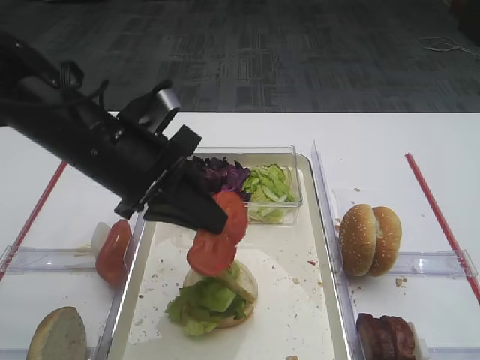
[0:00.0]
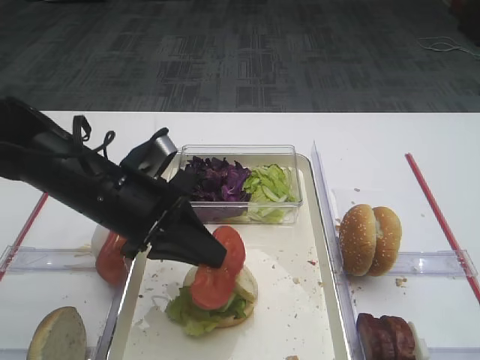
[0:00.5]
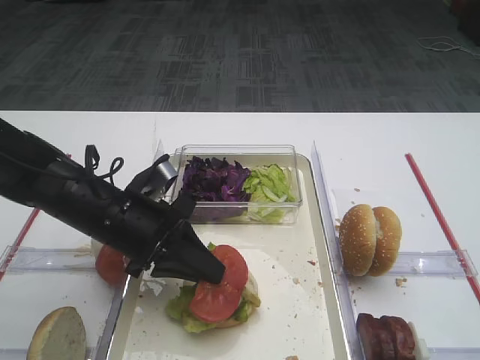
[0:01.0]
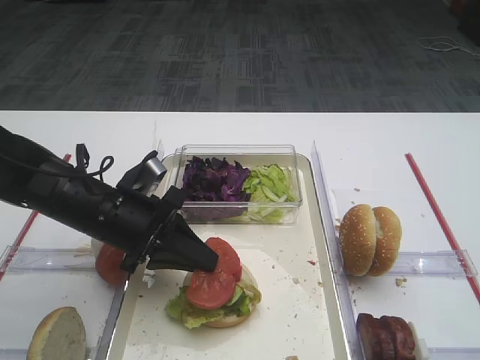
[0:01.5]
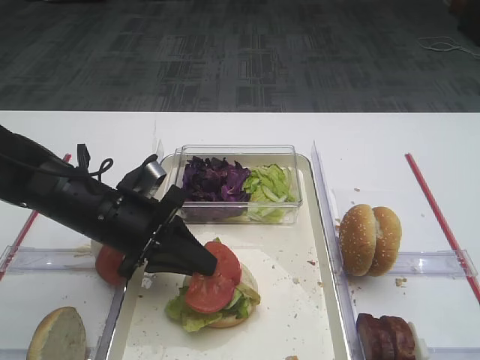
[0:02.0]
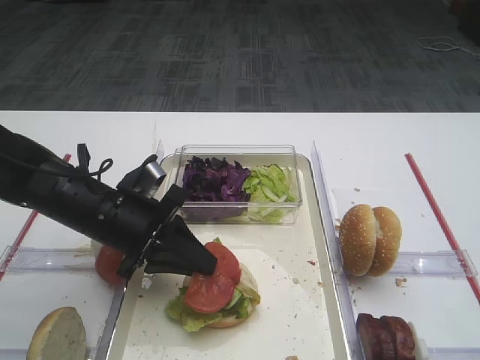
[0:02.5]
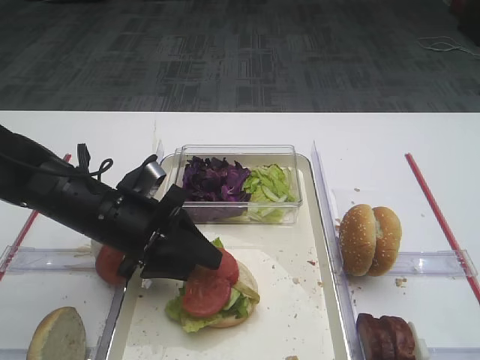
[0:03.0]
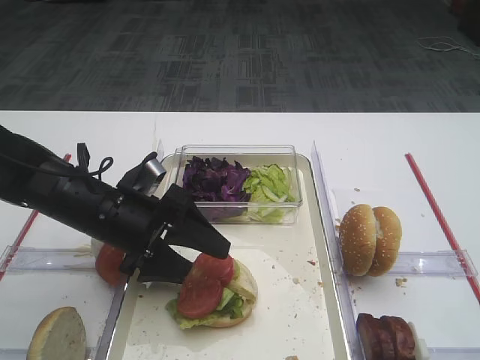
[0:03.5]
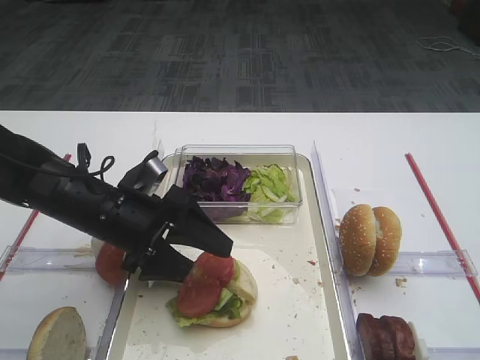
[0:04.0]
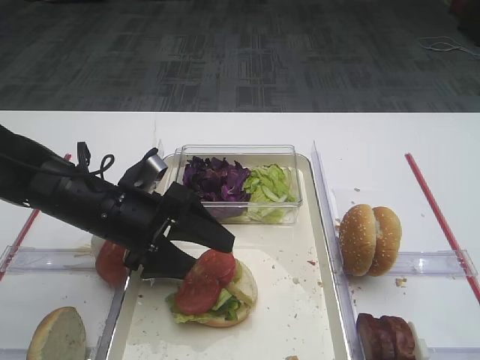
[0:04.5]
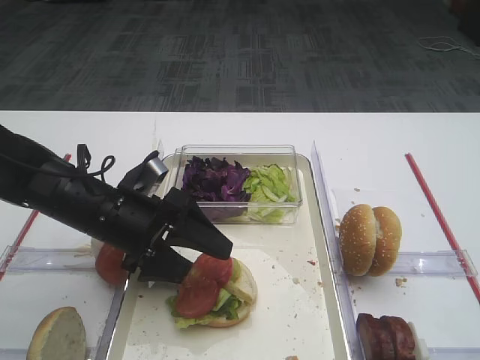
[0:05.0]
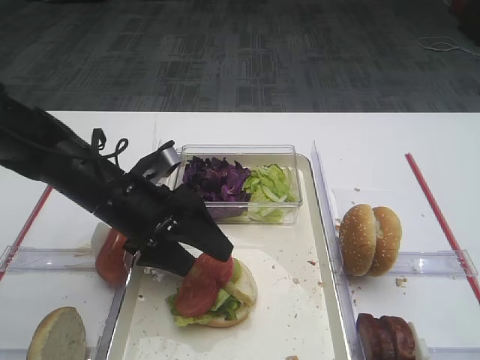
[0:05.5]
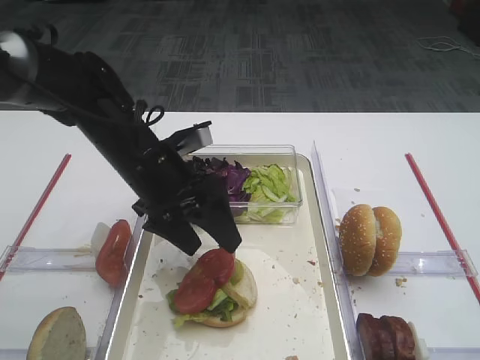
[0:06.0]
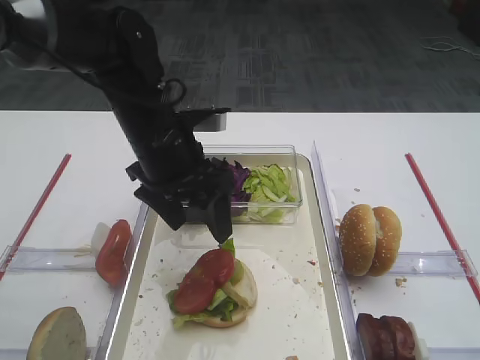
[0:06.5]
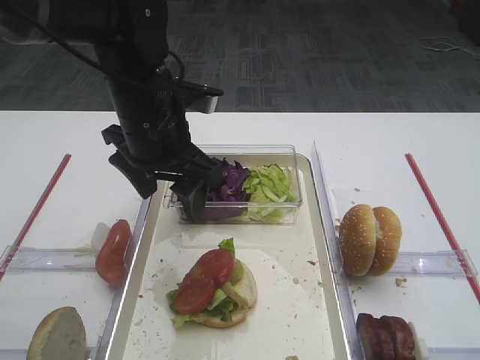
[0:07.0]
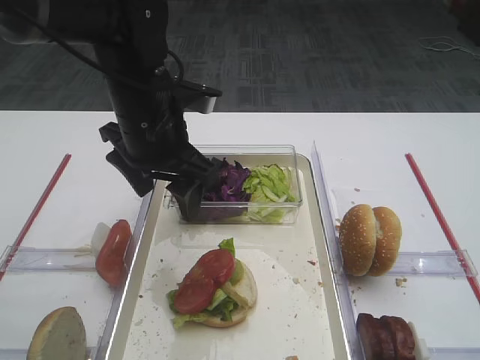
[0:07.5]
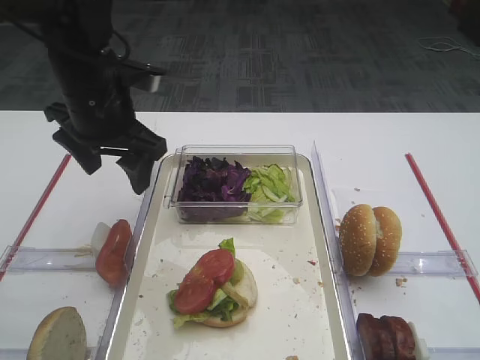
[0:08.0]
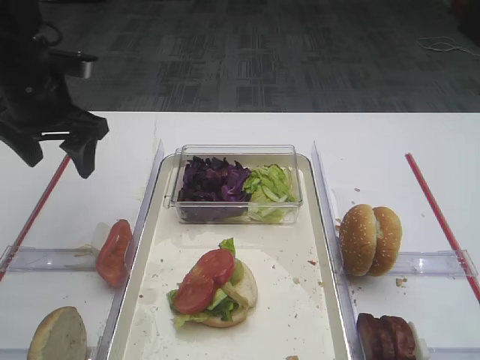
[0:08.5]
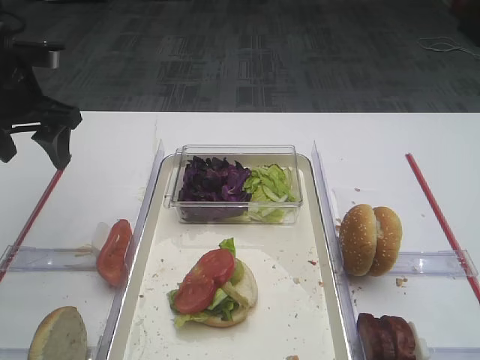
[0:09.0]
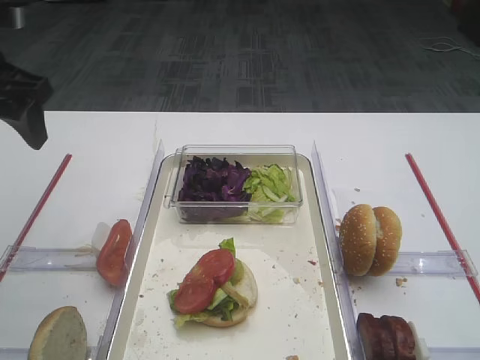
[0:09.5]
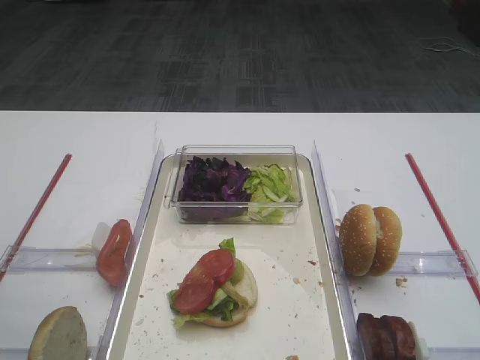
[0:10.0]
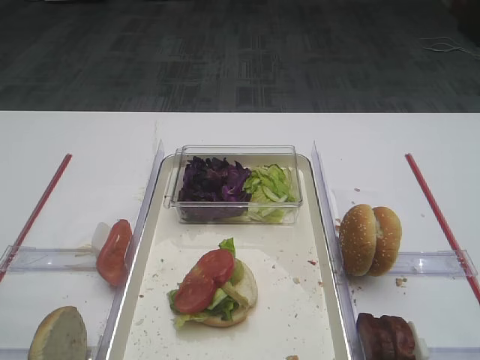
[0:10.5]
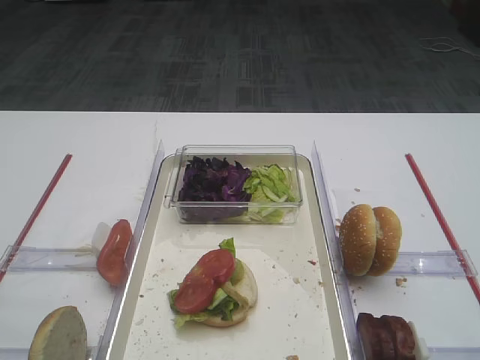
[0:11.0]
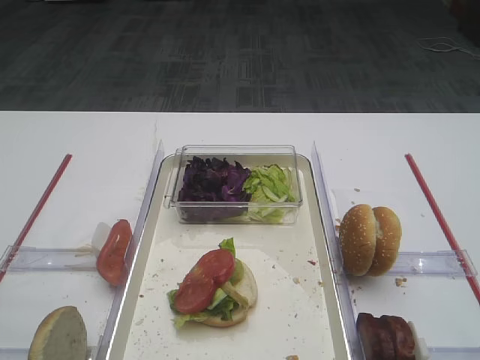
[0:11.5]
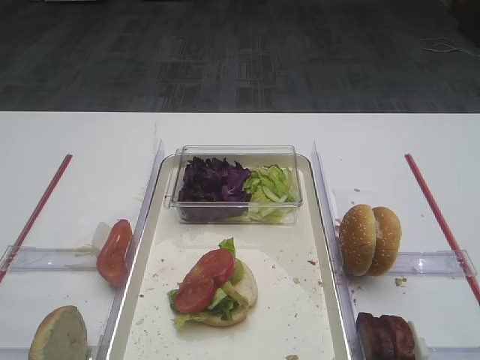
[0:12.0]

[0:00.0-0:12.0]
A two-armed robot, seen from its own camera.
Step, 0:00.0 to 0:06.0: Place the tomato slice on the lettuce leaf with the left gripper.
0:00.0 to 0:02.0: The left gripper heads downward, covering roughly 10 cm.
0:02.0 to 0:04.0: The left gripper opens.
0:04.0 to 0:06.0: The left gripper moves some 5 cm.
0:06.0 to 0:08.0: The left gripper travels upward by some 5 cm.
0:08.0 to 0:10.0: The left gripper is displaced backward, to the left and upward by roughly 20 cm.

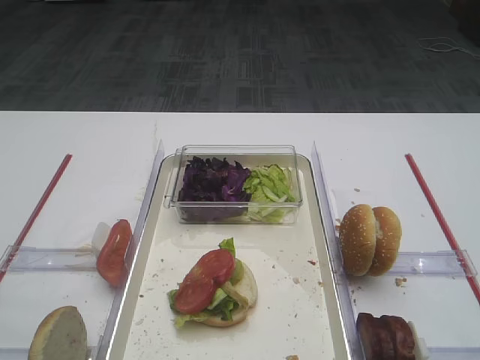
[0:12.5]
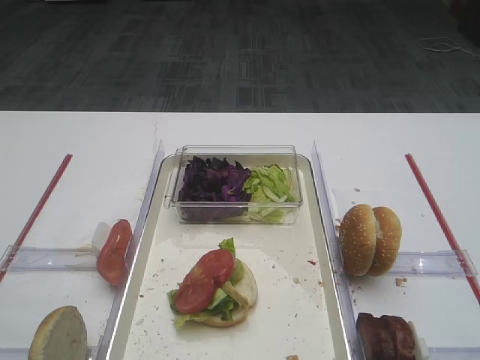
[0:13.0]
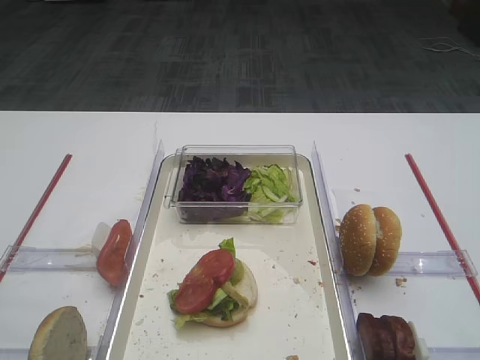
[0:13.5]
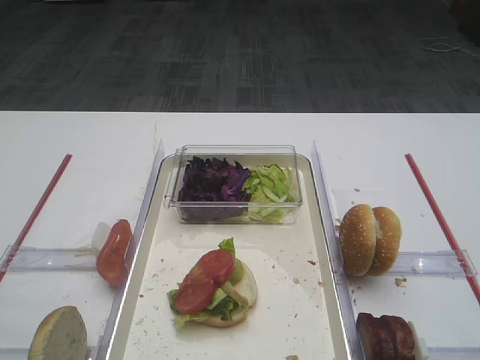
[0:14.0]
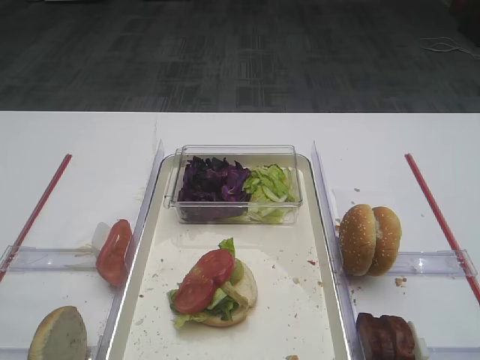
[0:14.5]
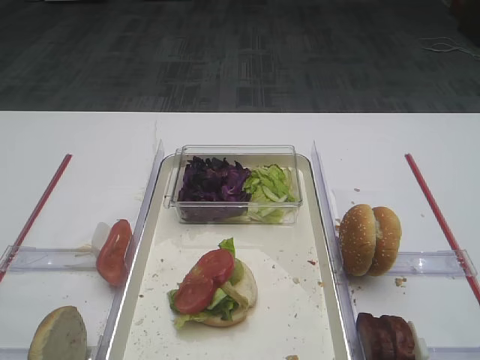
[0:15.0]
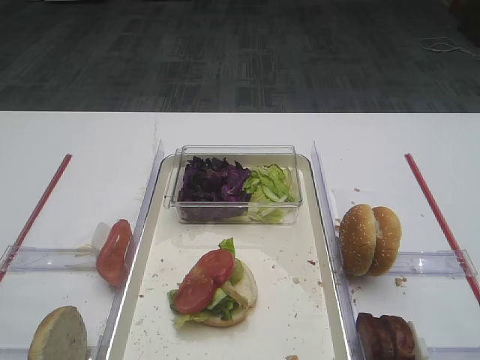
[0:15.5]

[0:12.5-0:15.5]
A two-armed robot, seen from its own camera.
0:12.5 to 0:15.5: Neither gripper changes place.

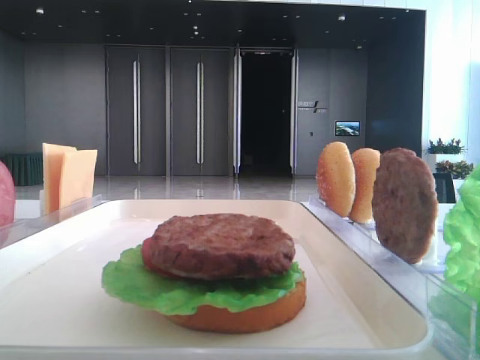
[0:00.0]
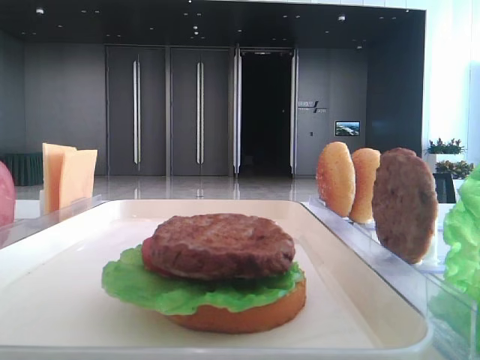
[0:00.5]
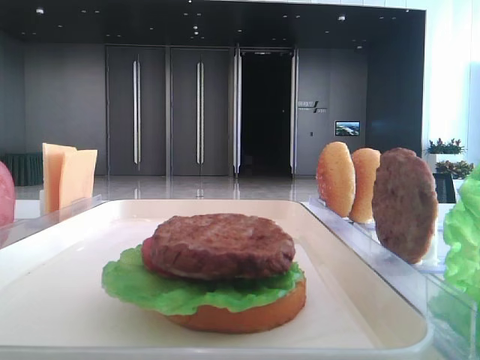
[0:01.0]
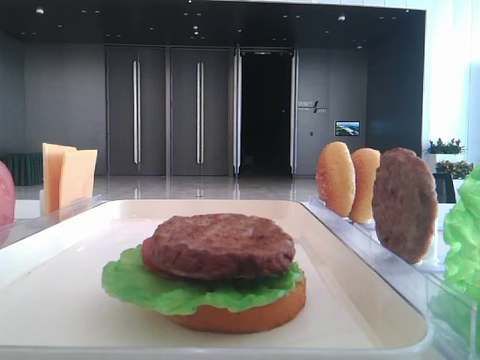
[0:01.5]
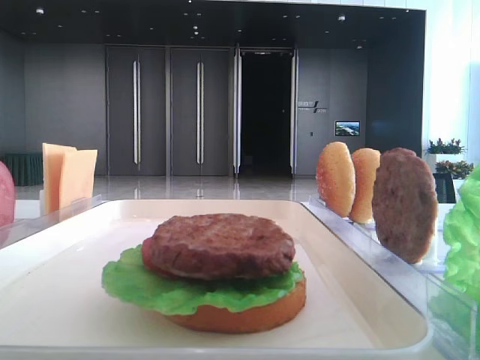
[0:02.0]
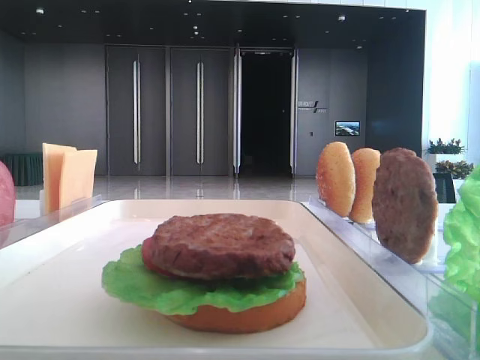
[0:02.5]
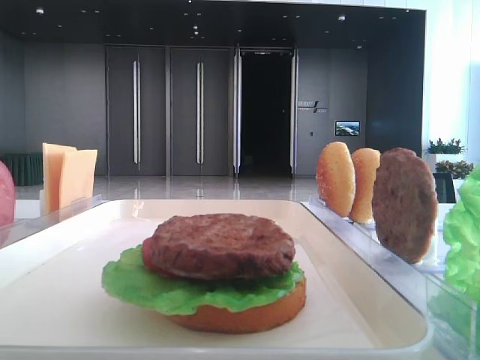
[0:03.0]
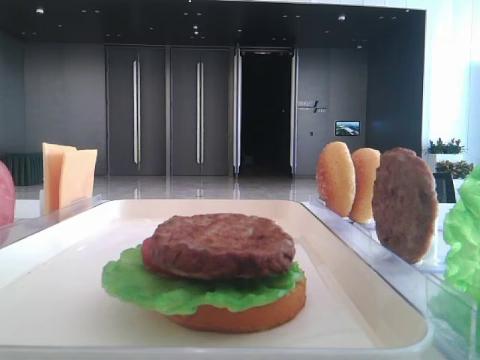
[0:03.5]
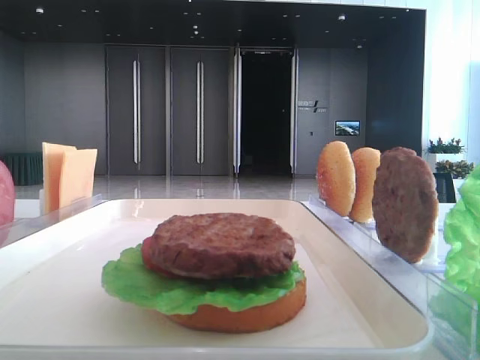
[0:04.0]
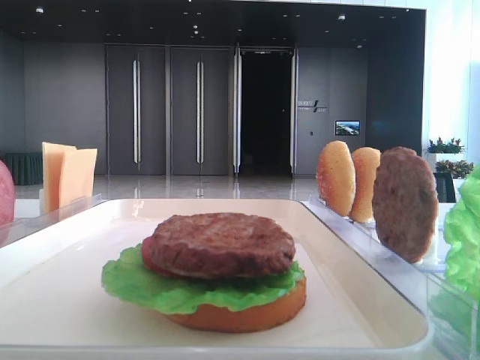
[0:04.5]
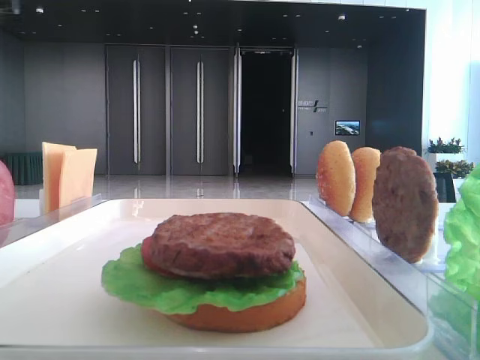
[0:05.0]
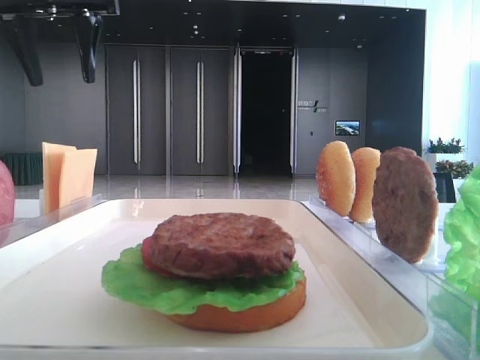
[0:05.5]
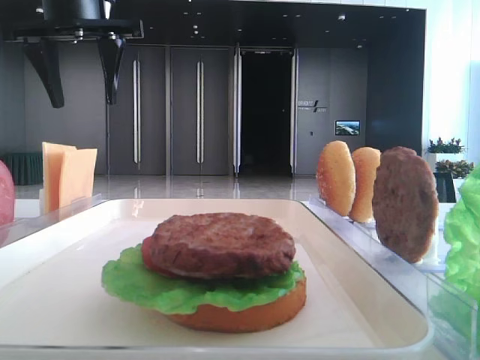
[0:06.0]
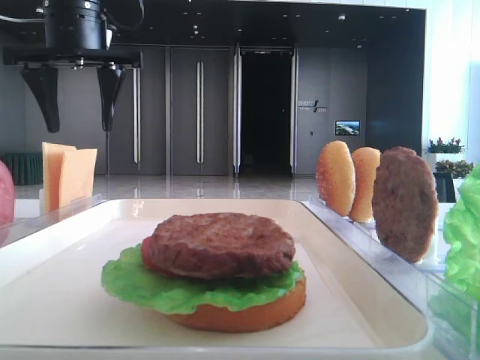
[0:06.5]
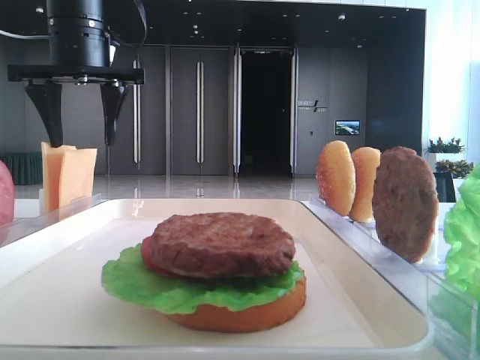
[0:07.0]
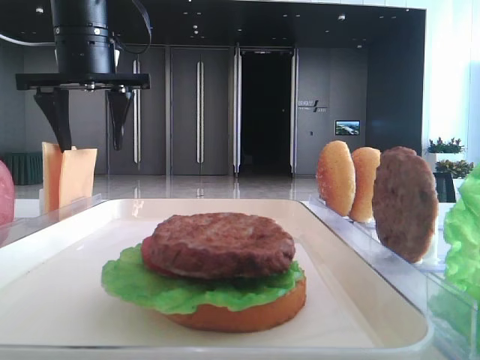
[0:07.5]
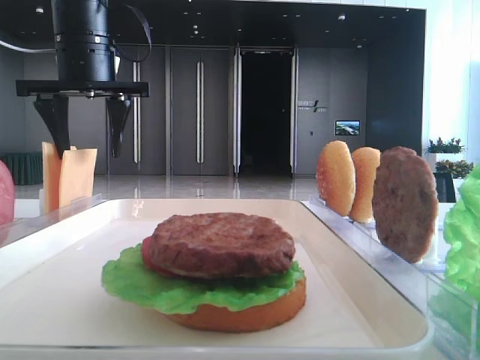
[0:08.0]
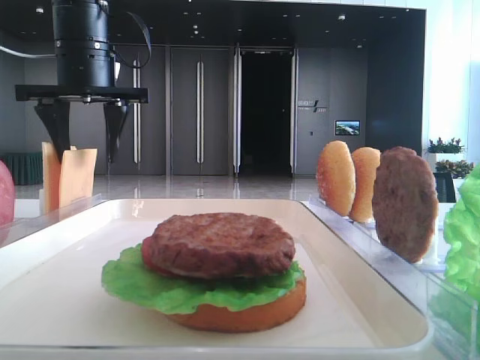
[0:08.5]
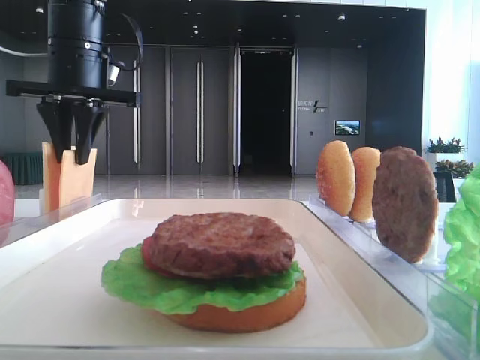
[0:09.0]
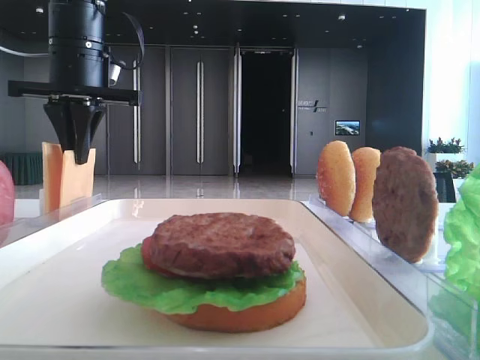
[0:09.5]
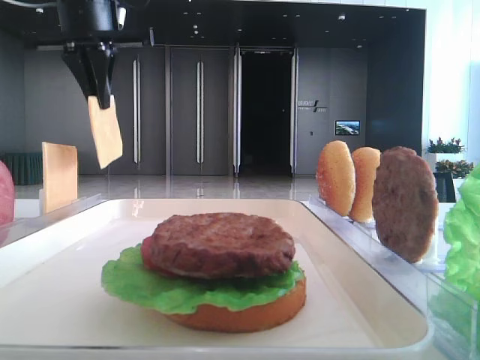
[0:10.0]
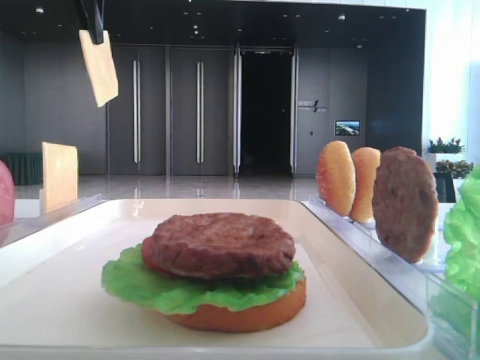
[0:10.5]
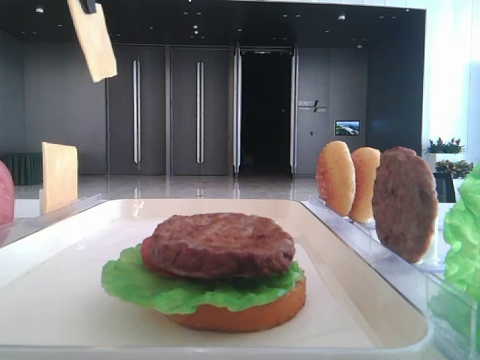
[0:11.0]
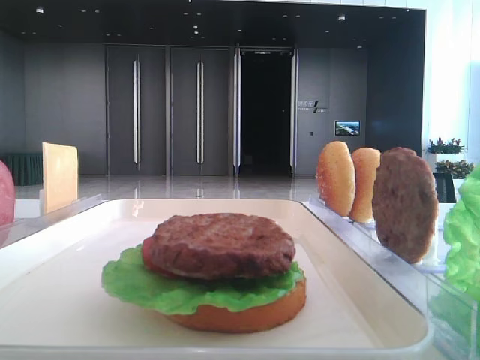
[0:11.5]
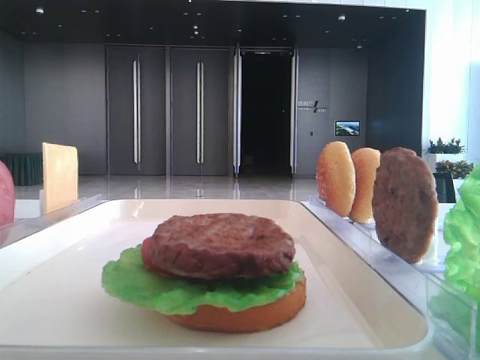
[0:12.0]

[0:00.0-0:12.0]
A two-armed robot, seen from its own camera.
Step, 0:00.0 to 0:09.5: Pick up the cheese slice with the left hand.
0:04.0 to 0:06.0: The left gripper is displaced to the right, forward and downward by some 25 cm.
0:06.0 to 0:08.0: The left gripper heads downward, covering roughly 5 cm.
0:08.0 to 0:10.0: The left gripper is displaced upward by some 5 cm, and closes.
0:10.0 to 0:12.0: The left gripper heads backward, covering approximately 25 cm.
